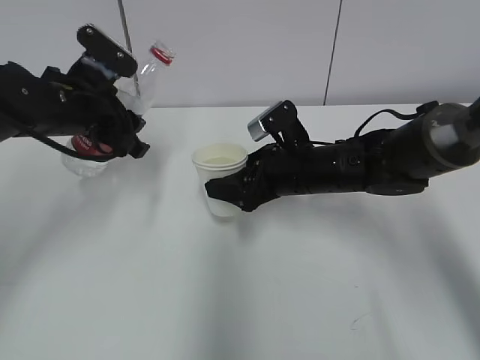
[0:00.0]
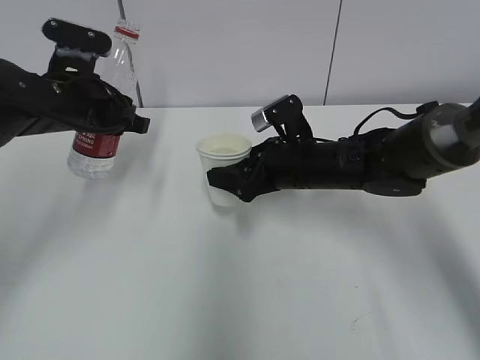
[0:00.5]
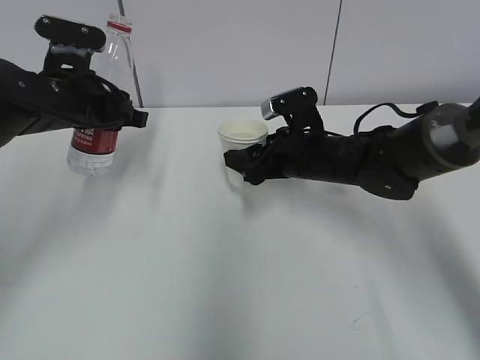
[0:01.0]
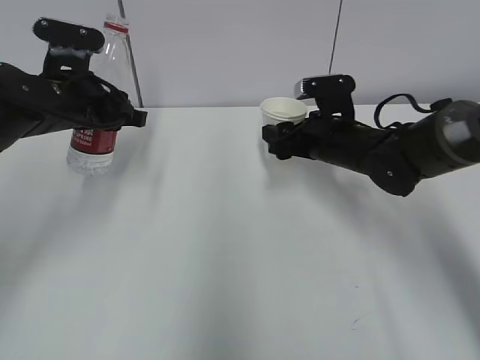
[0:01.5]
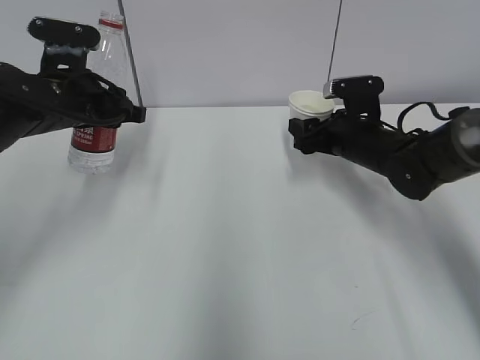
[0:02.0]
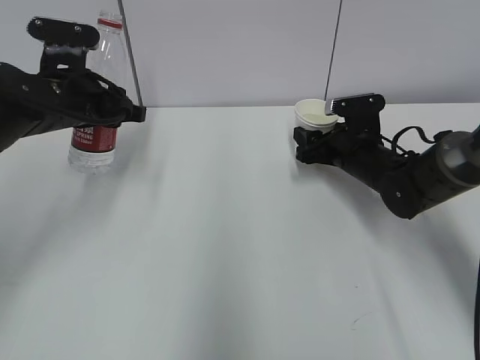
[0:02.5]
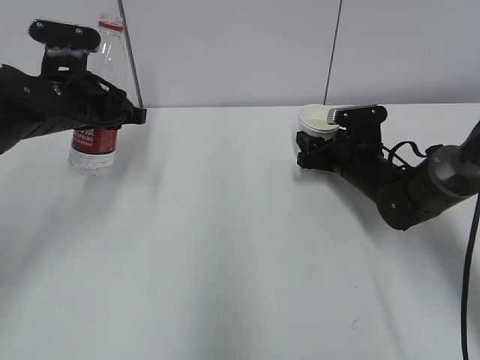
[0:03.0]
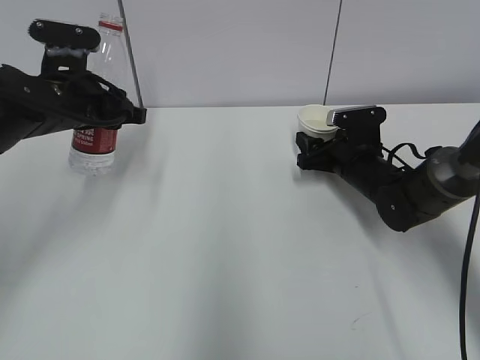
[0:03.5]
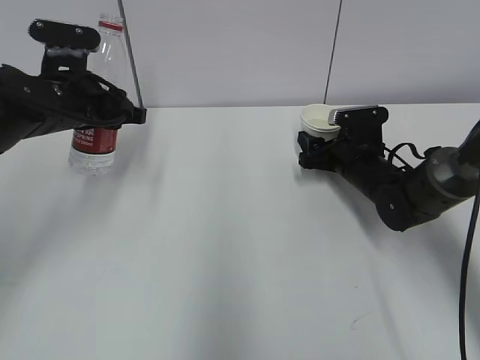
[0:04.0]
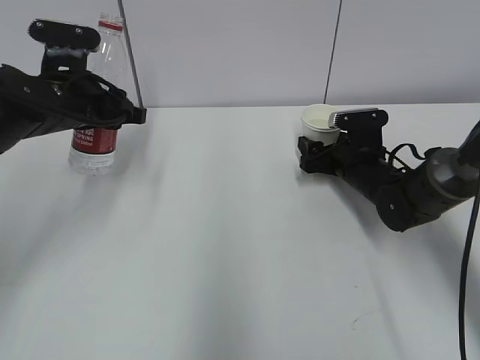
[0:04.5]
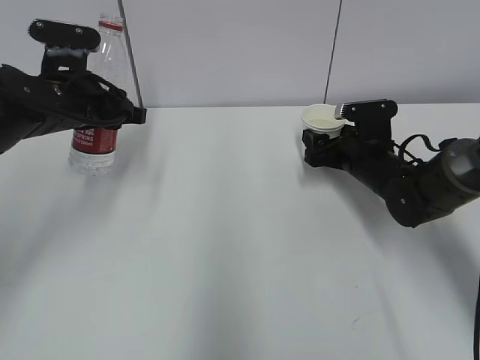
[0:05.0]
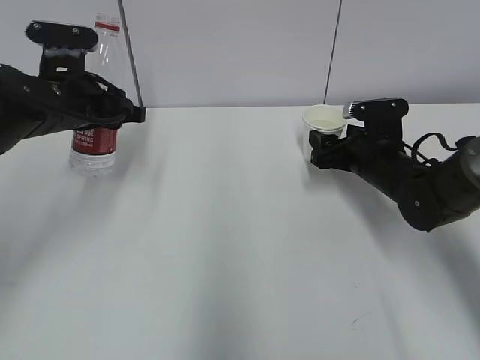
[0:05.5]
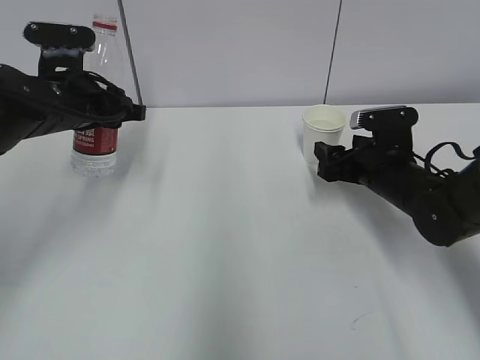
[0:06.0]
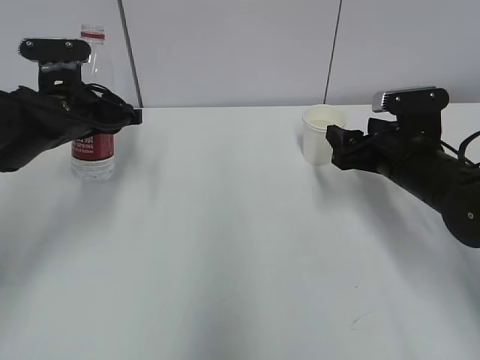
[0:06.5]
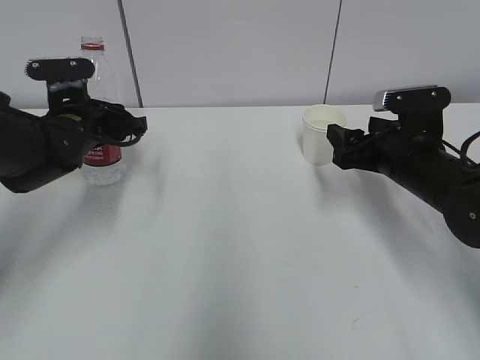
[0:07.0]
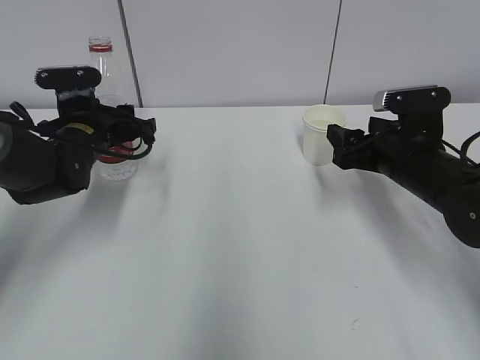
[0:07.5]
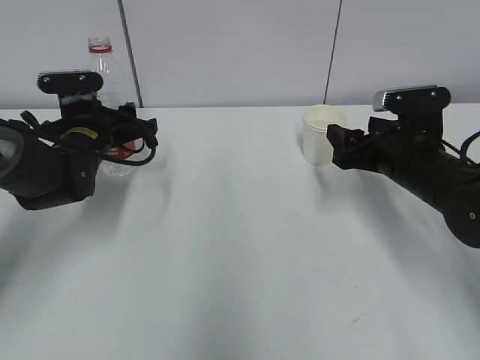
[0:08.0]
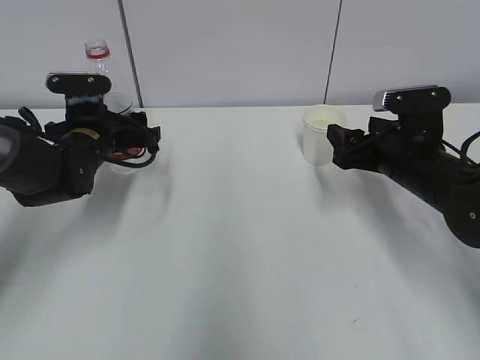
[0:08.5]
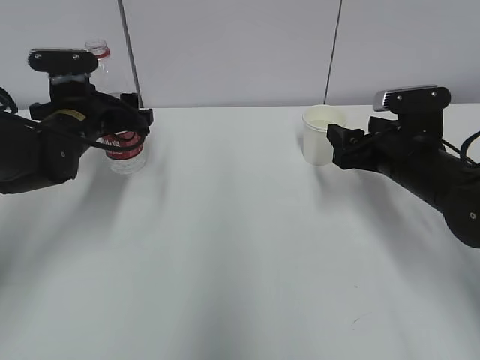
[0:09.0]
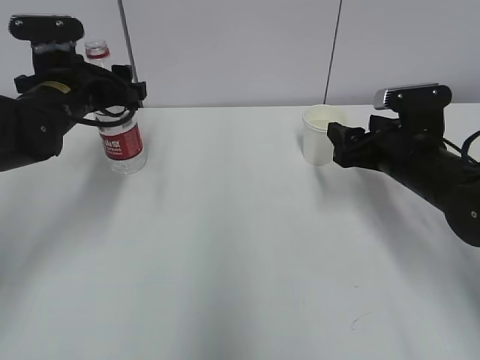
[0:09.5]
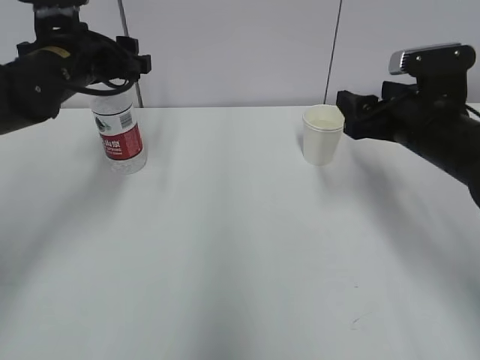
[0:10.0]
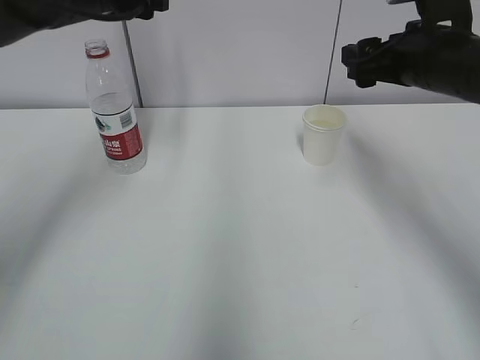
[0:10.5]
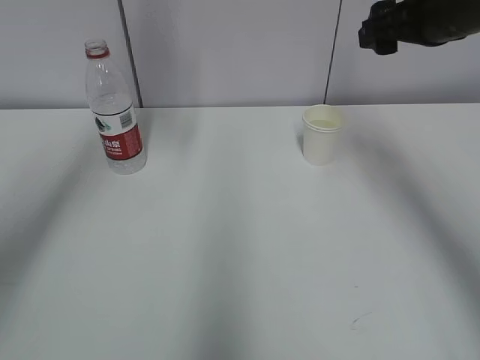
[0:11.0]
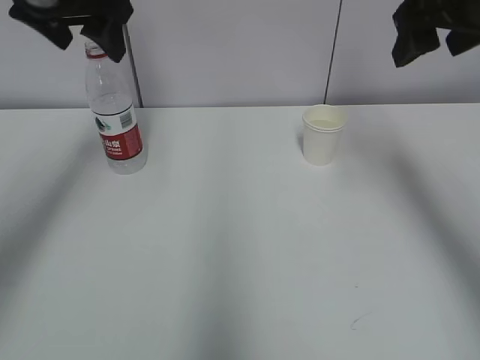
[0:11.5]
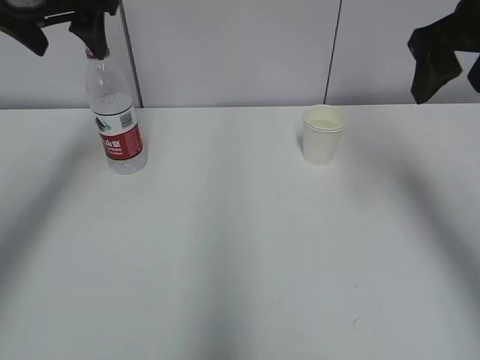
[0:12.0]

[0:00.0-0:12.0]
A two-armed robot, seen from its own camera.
0:00.0 to 0:02.0: The right gripper travels to the right and forward by roughly 10 cm.
0:02.0 to 0:04.0: The right gripper is displaced downward by roughly 5 cm.
0:04.0 to 0:06.0: The right gripper heads backward, covering roughly 5 cm.
0:06.0 to 0:08.0: The right gripper shifts by roughly 5 cm; the left gripper is displaced downward by some 10 cm.
0:08.0 to 0:10.0: The left gripper moves upward, some 10 cm, and opens its fingers.
0:10.0 to 0:12.0: The grippers both shift upward by roughly 15 cm.

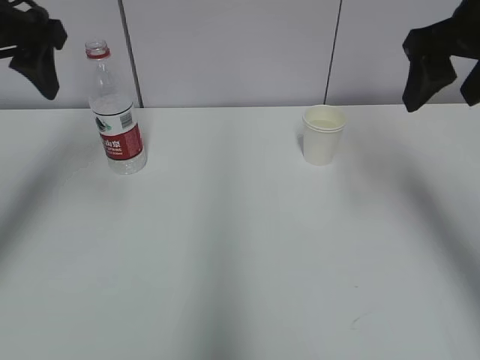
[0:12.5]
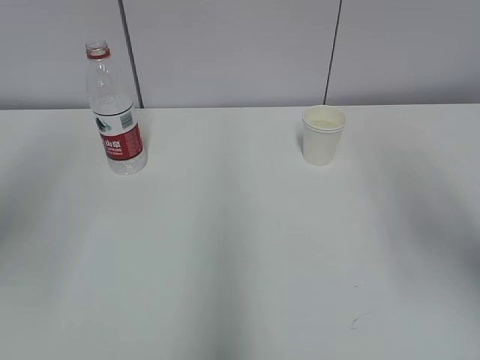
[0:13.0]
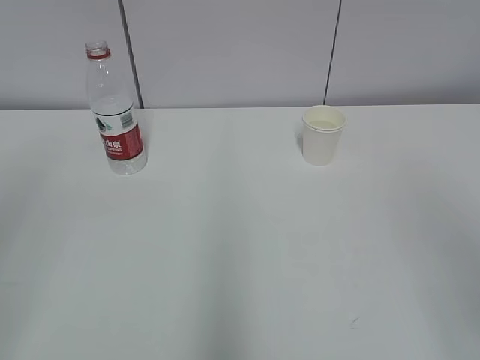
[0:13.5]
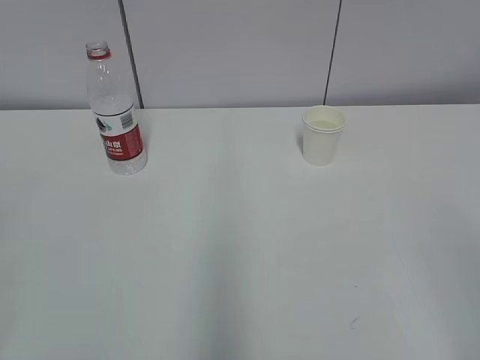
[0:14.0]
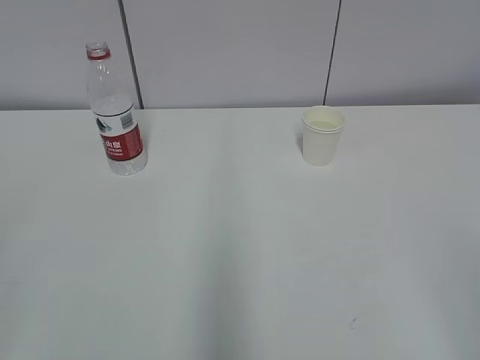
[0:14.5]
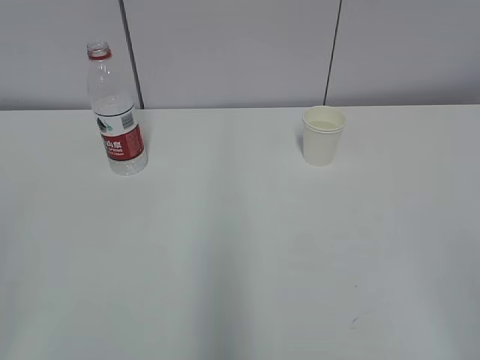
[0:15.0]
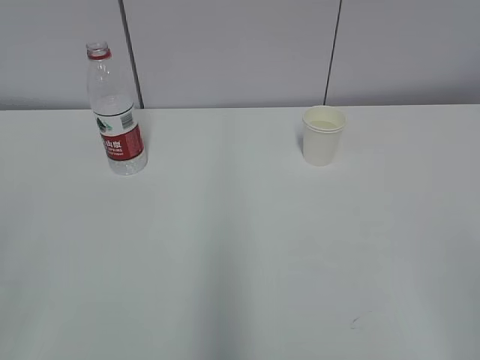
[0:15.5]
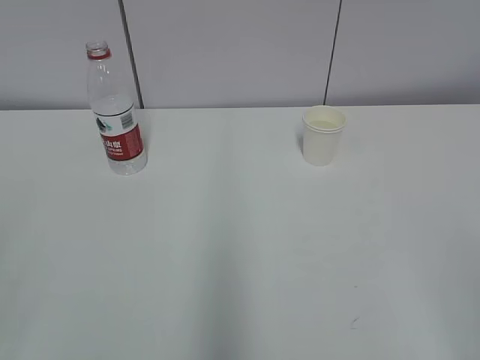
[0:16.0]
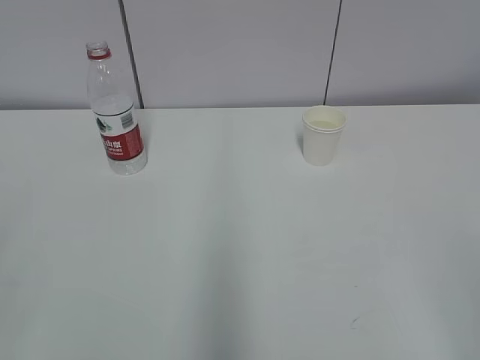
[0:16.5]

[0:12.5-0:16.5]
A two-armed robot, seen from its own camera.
0:12.5 to 0:14.5: Both grippers move backward, roughly 35 cm.

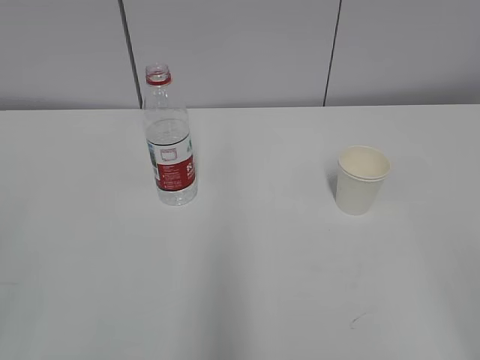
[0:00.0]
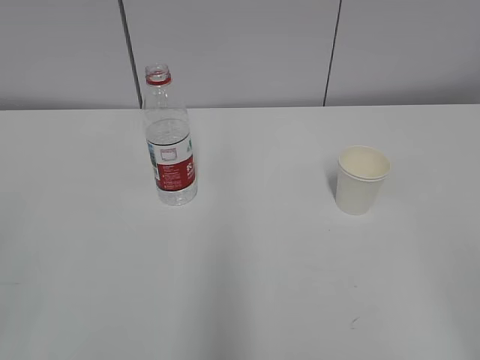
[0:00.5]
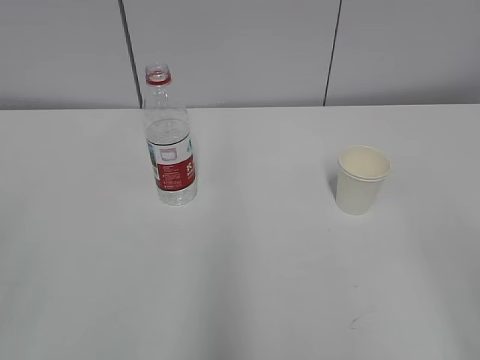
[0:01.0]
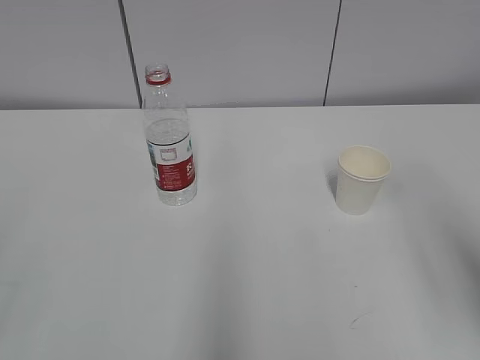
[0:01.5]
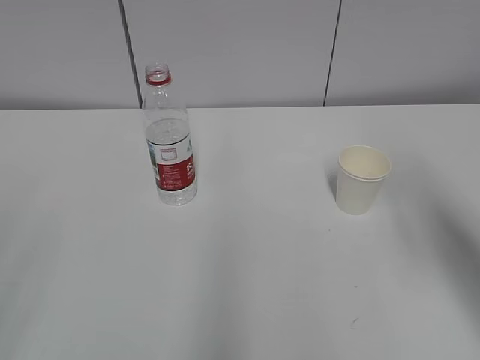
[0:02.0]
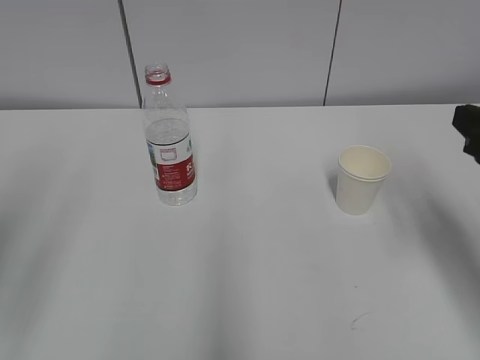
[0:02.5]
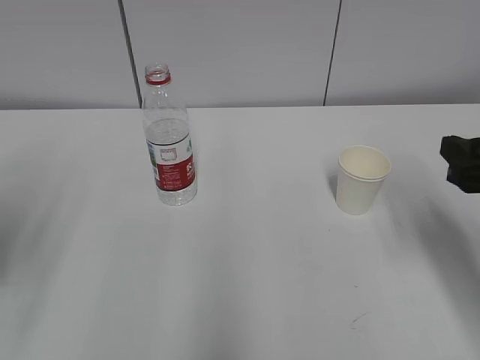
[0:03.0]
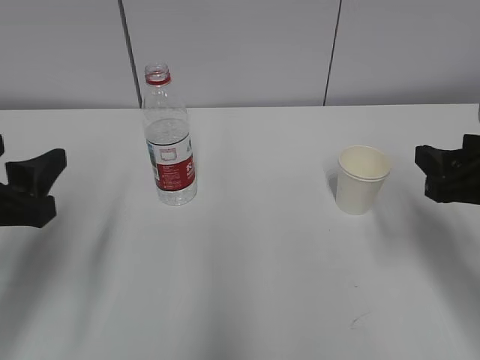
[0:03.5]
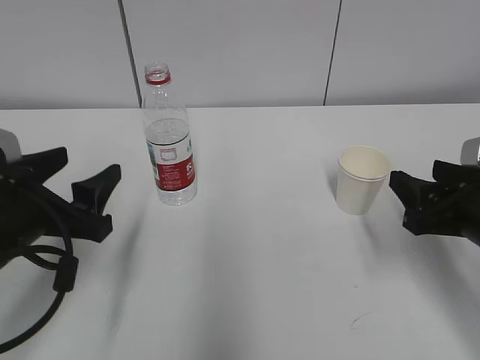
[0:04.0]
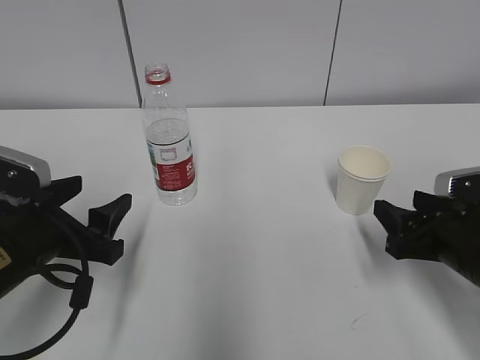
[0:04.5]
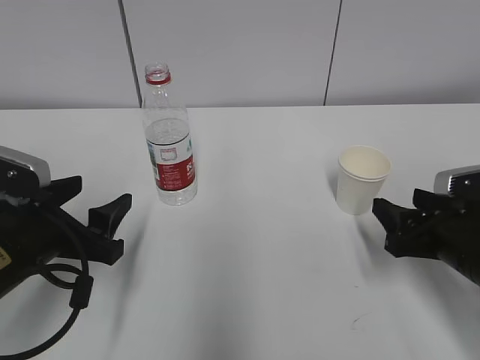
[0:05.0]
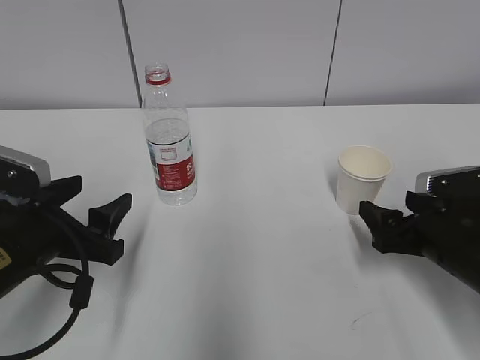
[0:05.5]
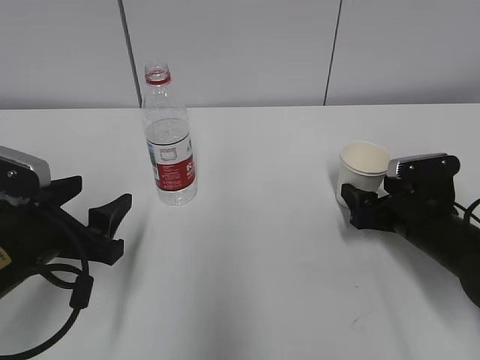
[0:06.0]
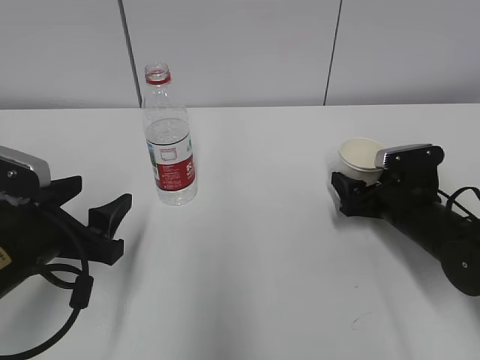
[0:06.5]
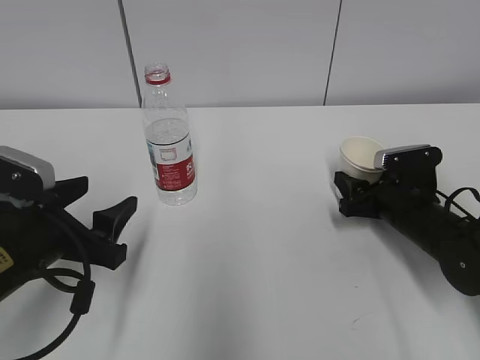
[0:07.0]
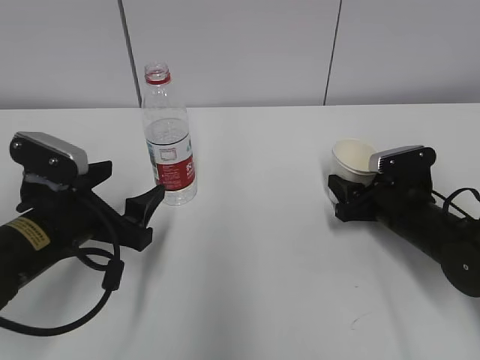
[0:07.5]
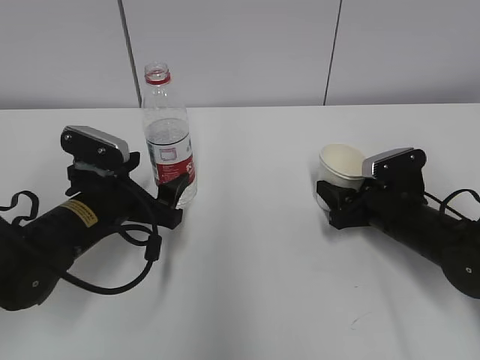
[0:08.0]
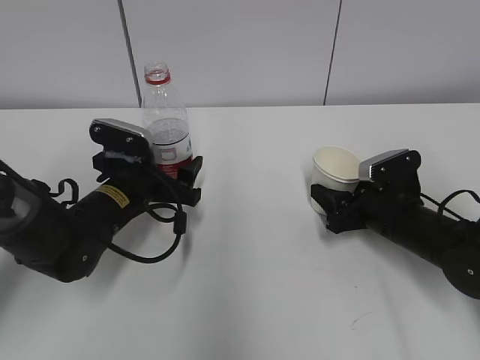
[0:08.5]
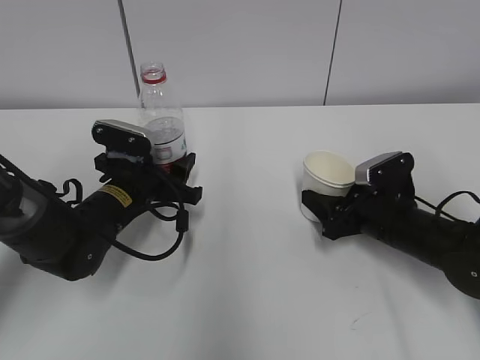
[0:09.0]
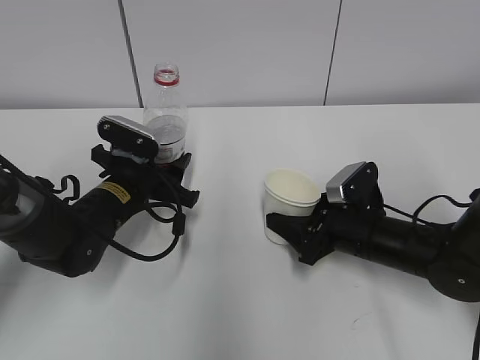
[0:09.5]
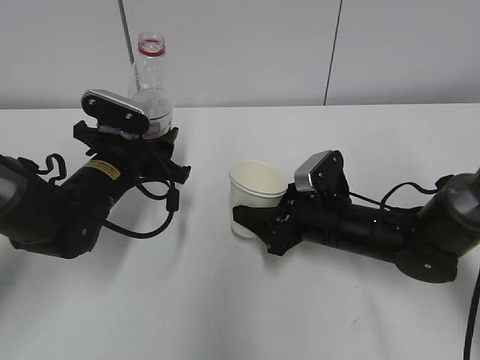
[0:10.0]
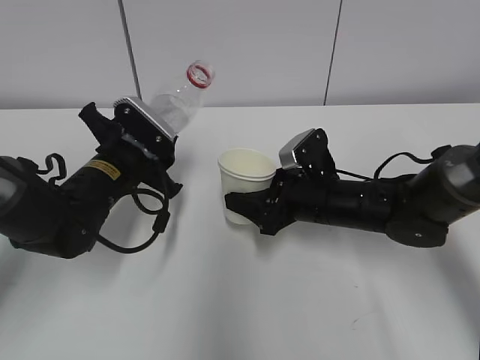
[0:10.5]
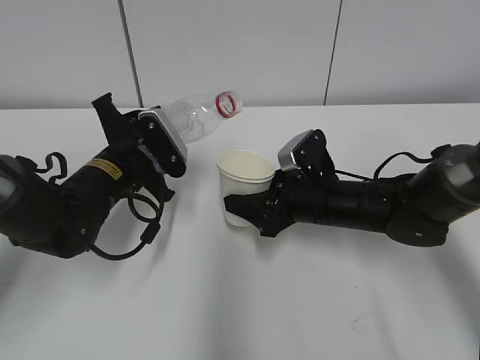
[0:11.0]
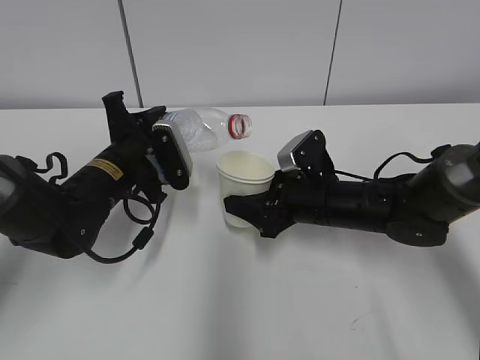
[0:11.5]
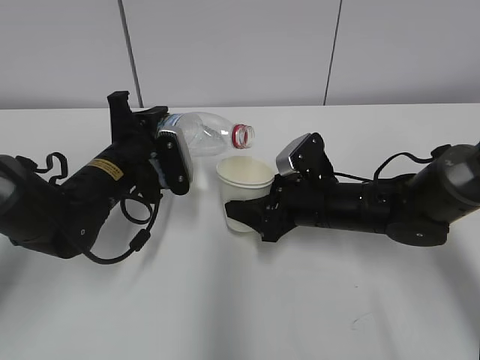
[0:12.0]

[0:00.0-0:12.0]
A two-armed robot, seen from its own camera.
Step, 0:00.0 to 0:05.5: Grab the paper cup with the right hand.
Step, 0:06.0 to 0:07.5: Grab the water bottle with the left hand.
Step, 0:08.0 to 0:11.0: Lift the paper cup with the right hand.
0:02.0 to 0:04.0: The left gripper shifts roughly 25 cm forward, downward and to the right; the right gripper goes some 15 cm downward and forward.
0:04.0 to 0:06.0: The right gripper moves downward and forward, about 10 cm, and opens.
0:06.0 to 0:08.0: The right gripper closes up. The left gripper goes about 5 cm forward, and opens.
0:08.0 to 0:10.0: The left gripper travels forward by approximately 5 cm, and closes its fingers; the right gripper heads to the left, covering some 10 cm.
